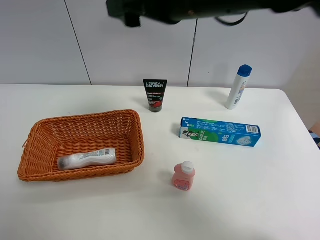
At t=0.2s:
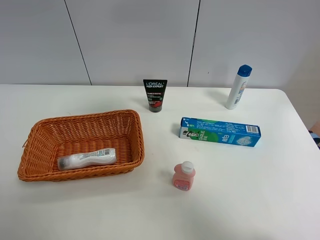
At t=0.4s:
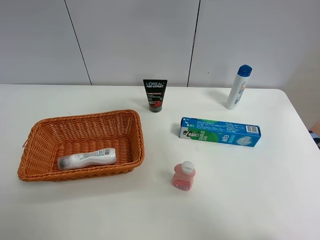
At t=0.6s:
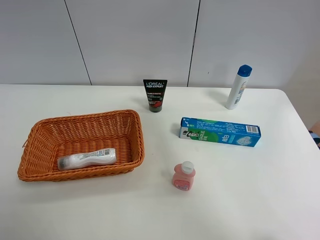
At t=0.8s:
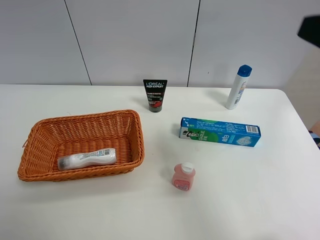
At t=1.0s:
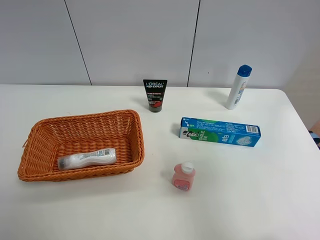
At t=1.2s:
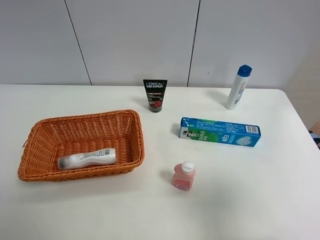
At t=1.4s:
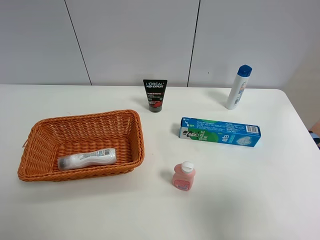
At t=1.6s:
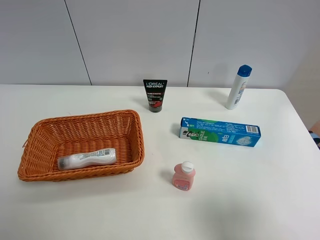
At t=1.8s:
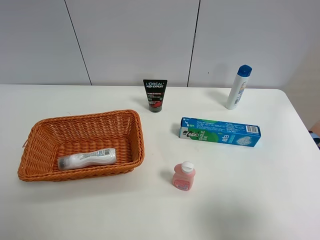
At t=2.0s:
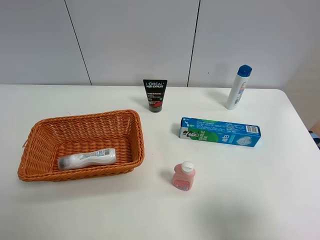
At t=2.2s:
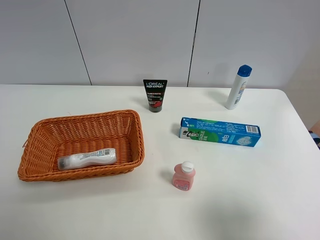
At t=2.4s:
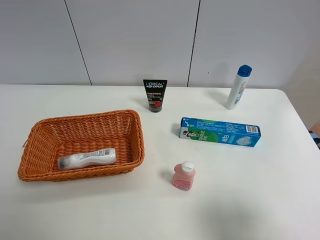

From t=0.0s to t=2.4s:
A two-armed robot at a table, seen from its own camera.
Task of the whole recording: Place the object closest to the toothpaste in the basket.
From t=0.0s to t=1.2s: The right gripper heads backward and to the right, covering about 35 cm.
From t=1.2s to t=2.4s: The grippers move only a little.
